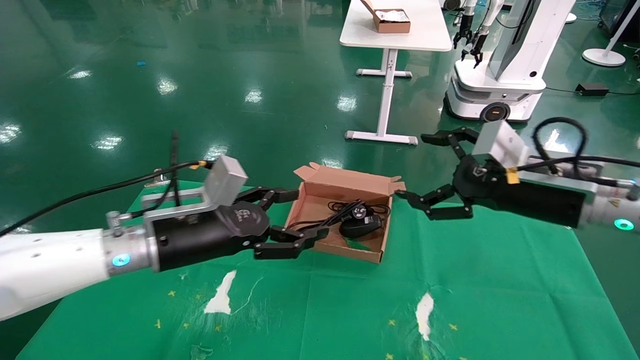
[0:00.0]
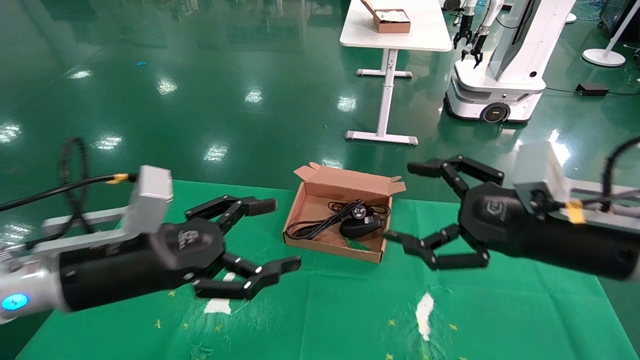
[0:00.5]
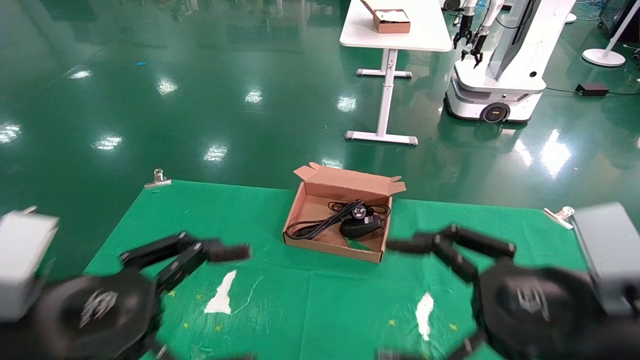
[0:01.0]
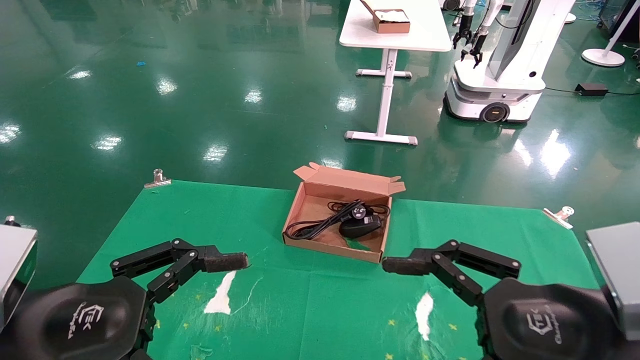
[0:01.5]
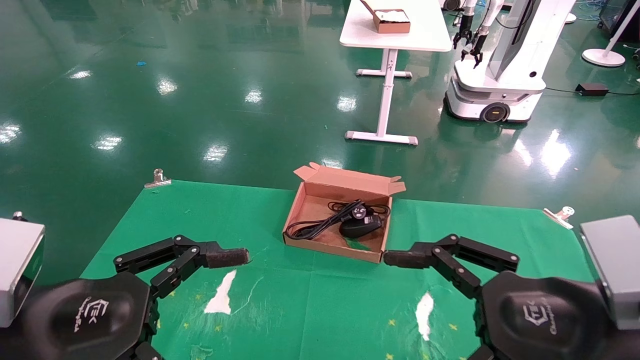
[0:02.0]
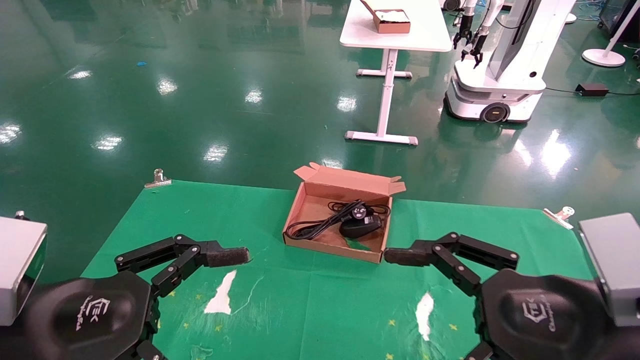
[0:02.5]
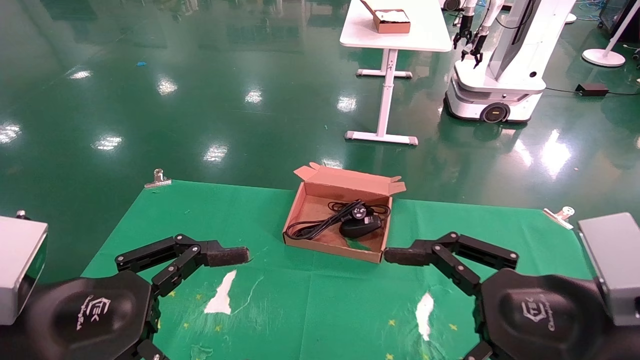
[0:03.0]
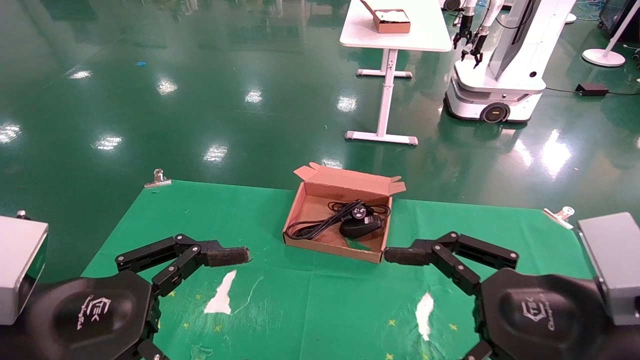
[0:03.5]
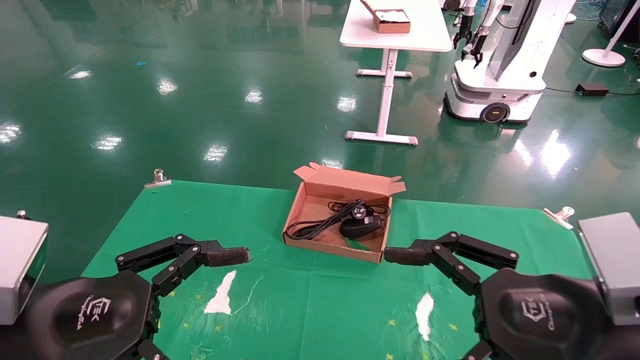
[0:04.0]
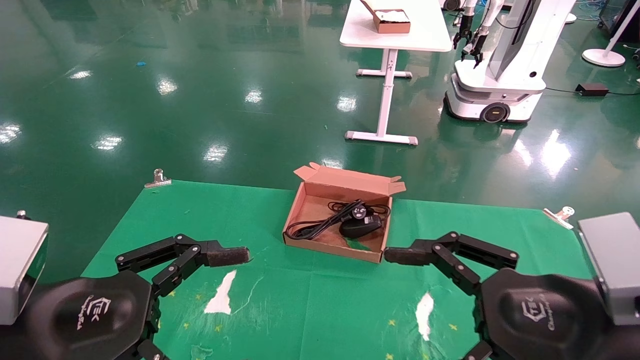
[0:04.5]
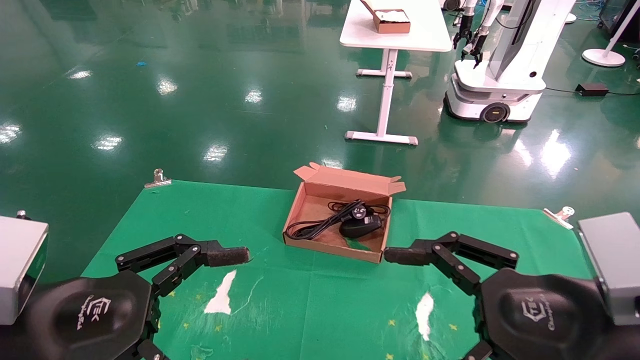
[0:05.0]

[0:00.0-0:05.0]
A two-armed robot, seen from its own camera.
0:00.0 to 0:02.5: The two grippers go roughly 15 cm backward.
0:02.5 to 0:05.0: Neither gripper changes place.
